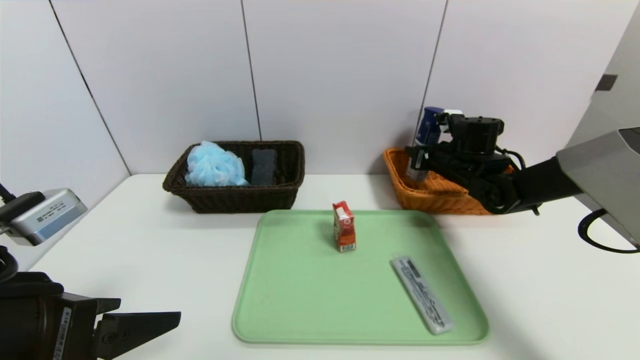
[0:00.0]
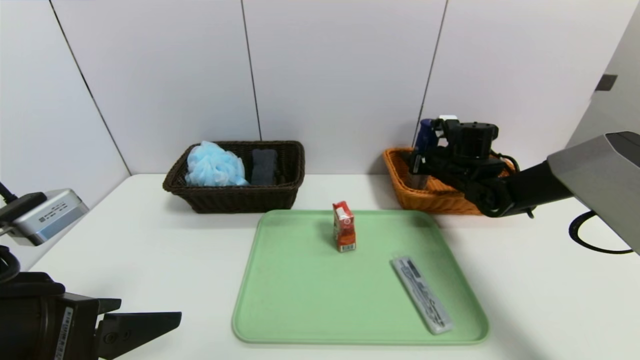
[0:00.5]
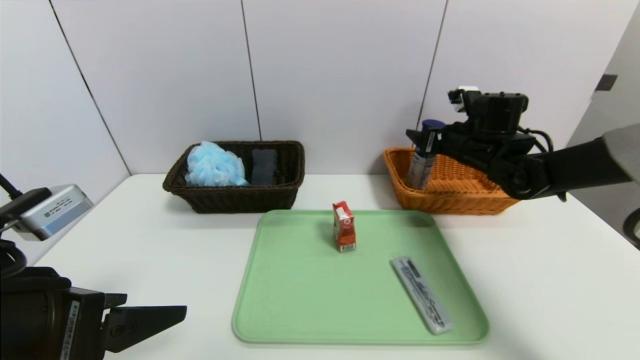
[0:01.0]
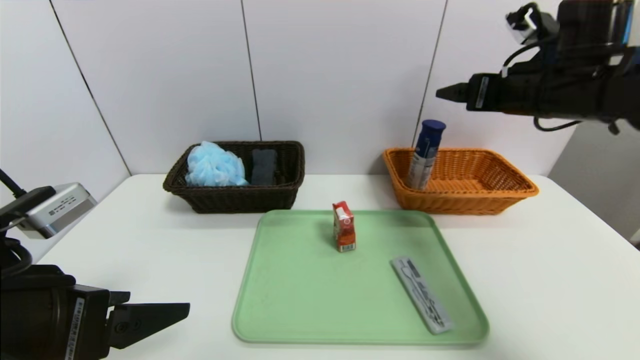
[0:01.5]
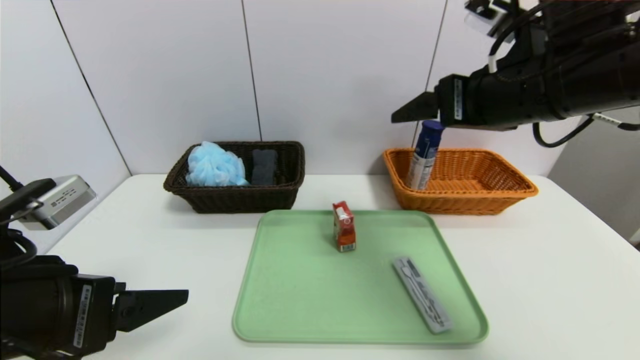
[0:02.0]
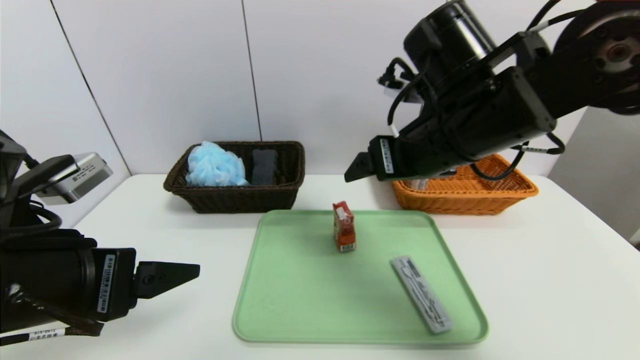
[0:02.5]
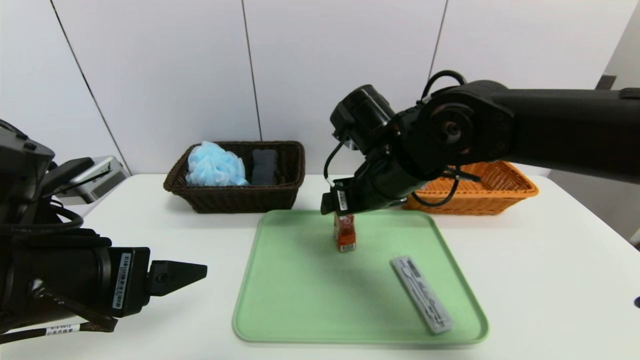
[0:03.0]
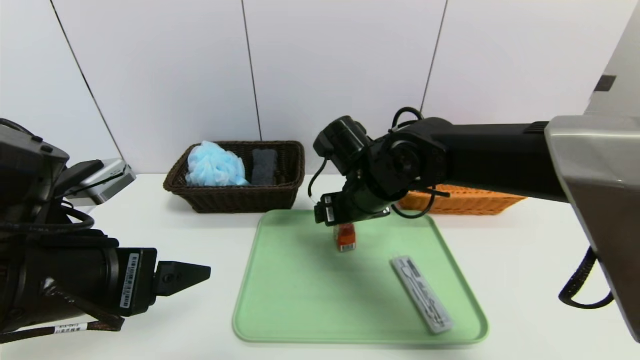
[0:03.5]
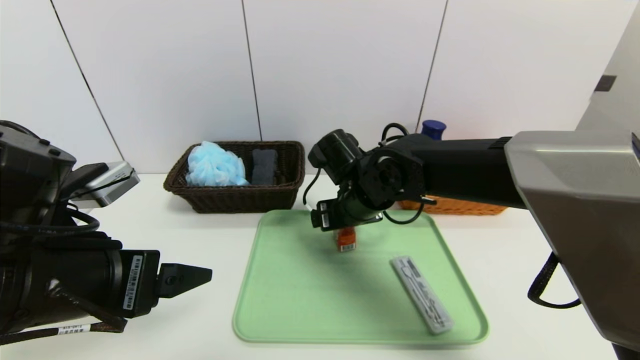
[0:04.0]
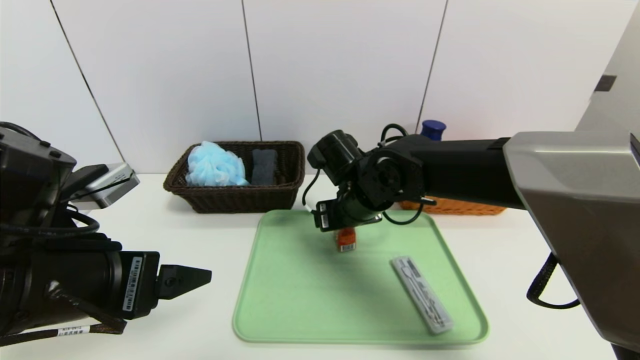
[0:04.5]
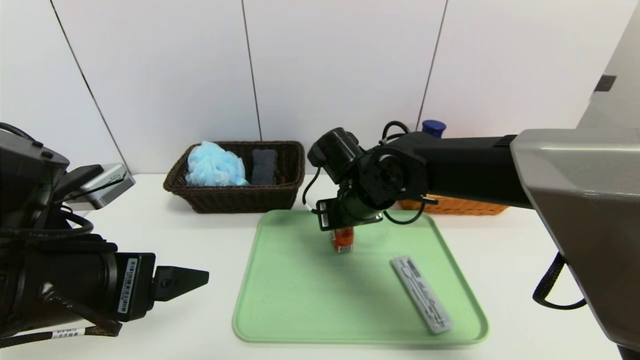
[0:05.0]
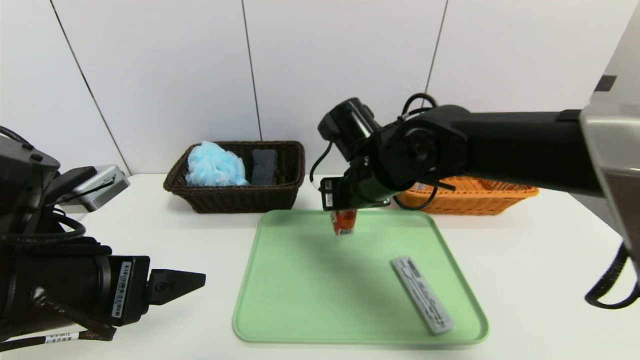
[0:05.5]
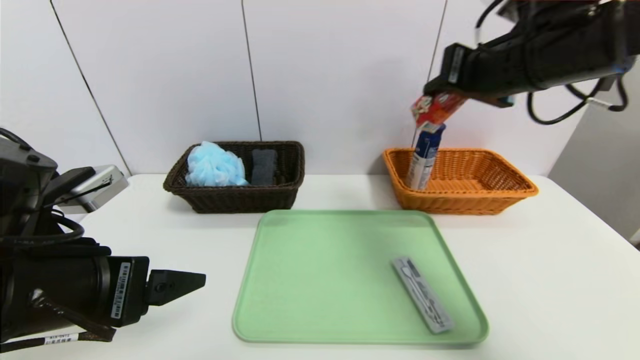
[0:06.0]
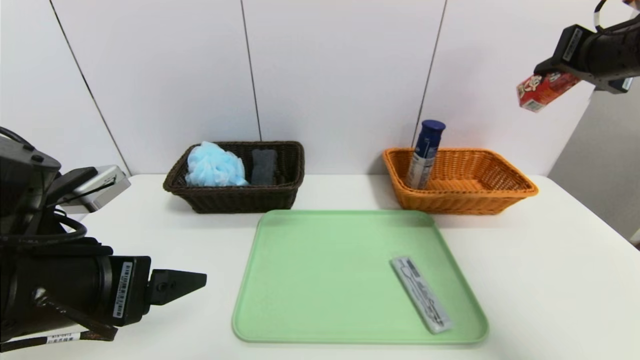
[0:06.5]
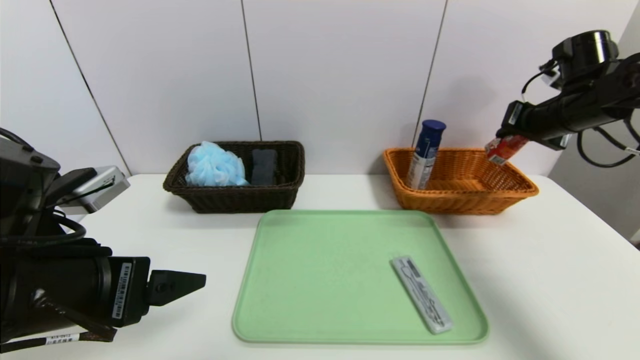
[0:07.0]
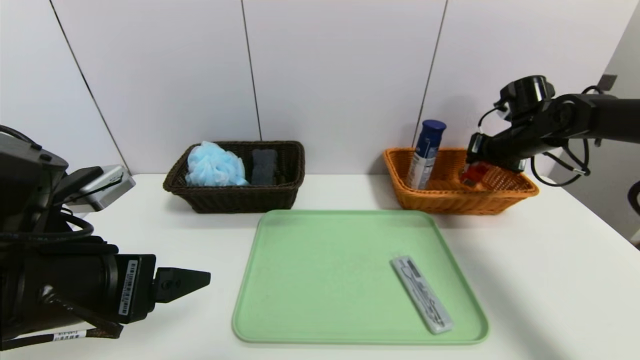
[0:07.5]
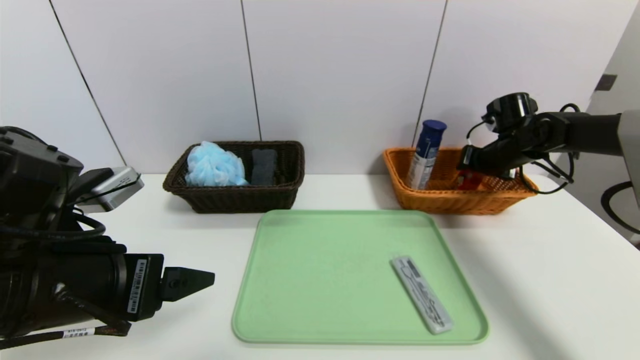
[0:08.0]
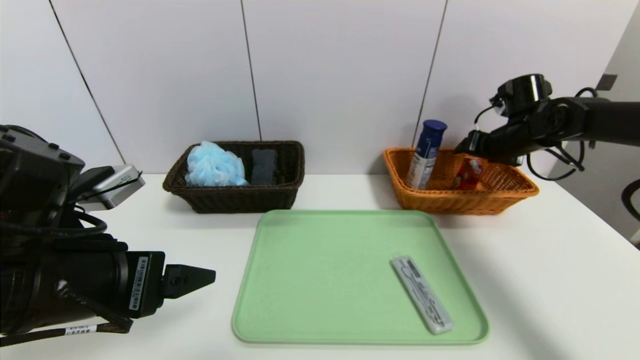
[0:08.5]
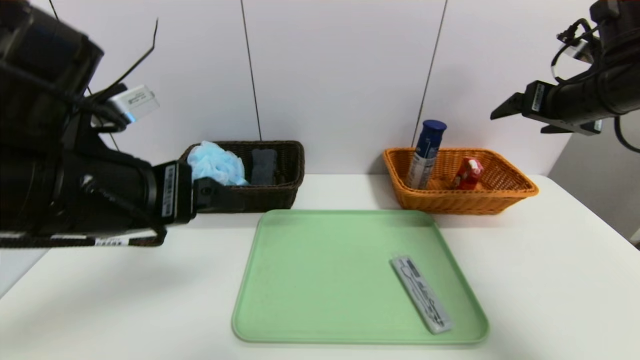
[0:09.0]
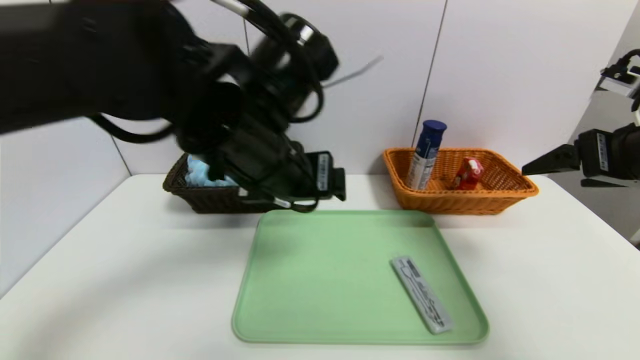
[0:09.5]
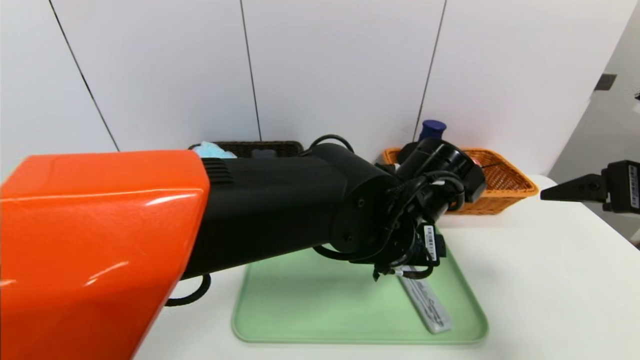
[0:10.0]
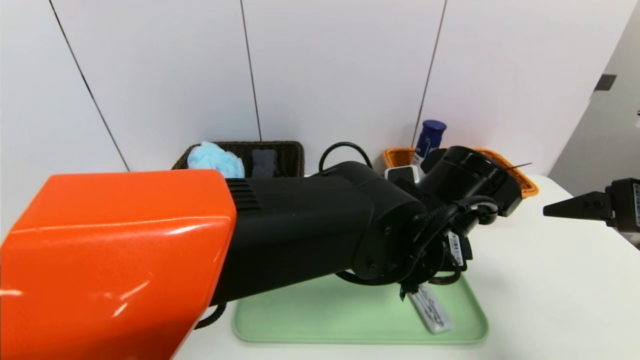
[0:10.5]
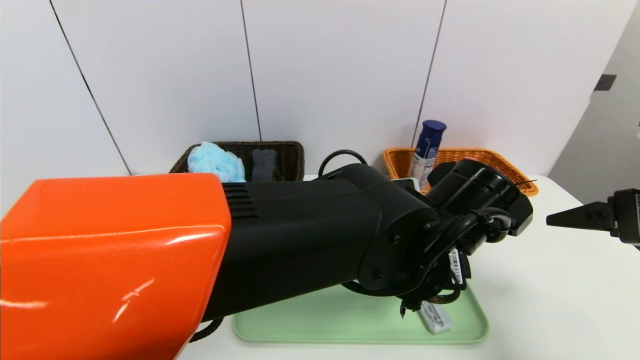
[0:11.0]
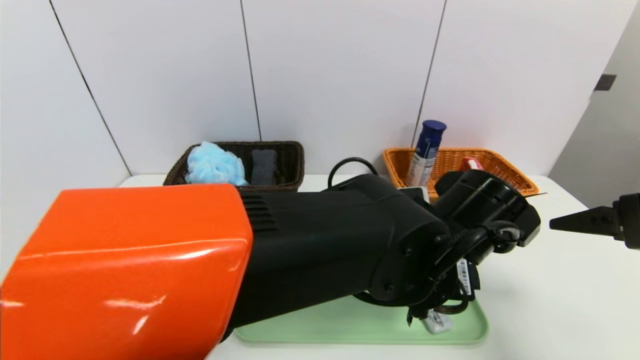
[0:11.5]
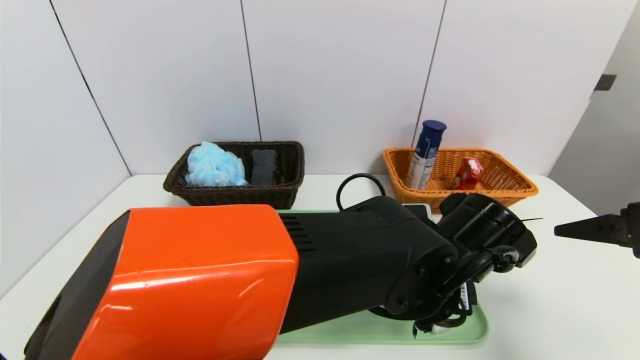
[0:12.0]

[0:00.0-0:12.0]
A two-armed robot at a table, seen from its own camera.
Task of the whole recording: place the food in the right basket with the right gripper, and place the non food items in the left basket with the left gripper.
Step, 0:01.5 to 0:08.5: Grasp the milk and put it in the right basket.
0:00.0 to 0:02.0: The right gripper travels backward and upward by approximately 25 cm, and opens its fingers.
0:02.0 to 0:04.0: The right gripper travels downward, to the left and forward by approximately 25 cm.
0:04.0 to 0:06.0: The right gripper is displaced upward and to the right by some 25 cm, and closes.
0:06.0 to 0:08.0: The right gripper heads downward, forward and to the right, covering some 30 cm, and opens.
0:08.0 to 0:10.0: The left gripper shifts about 30 cm to the right. The right gripper is displaced backward by some 30 cm, and opens up.
0:10.0 to 0:12.0: The left gripper moves roughly 5 cm.

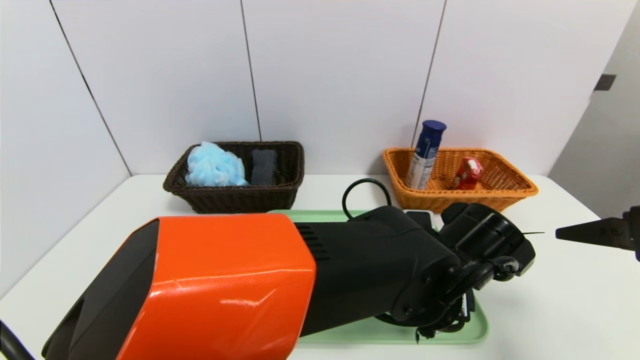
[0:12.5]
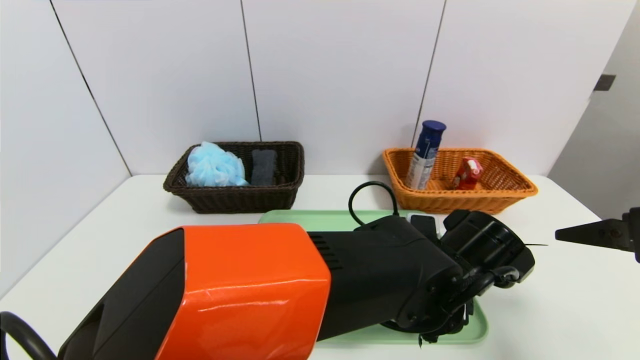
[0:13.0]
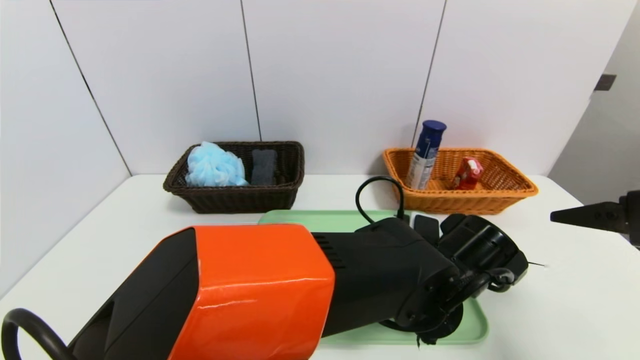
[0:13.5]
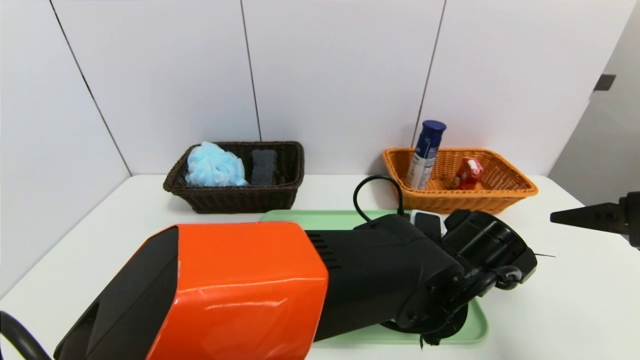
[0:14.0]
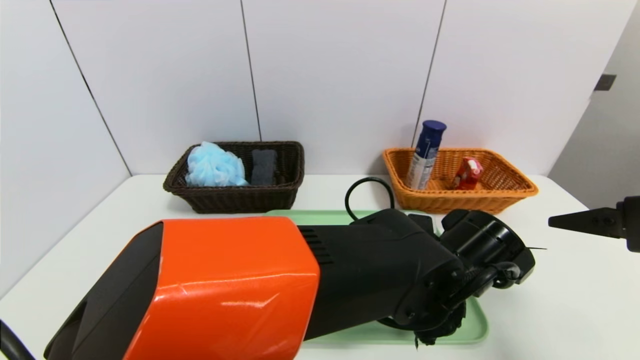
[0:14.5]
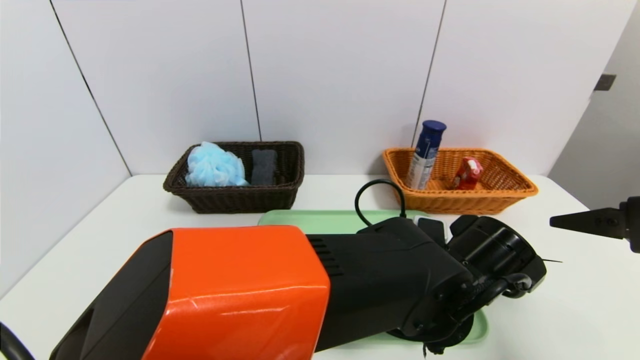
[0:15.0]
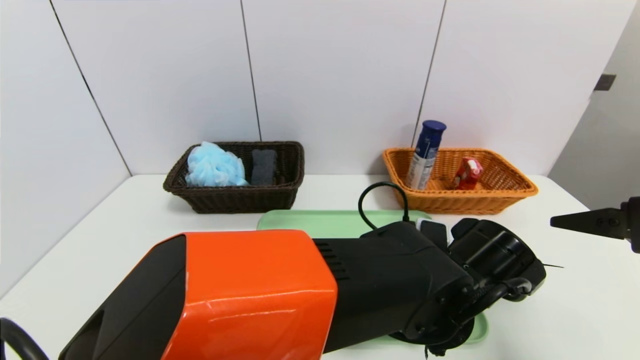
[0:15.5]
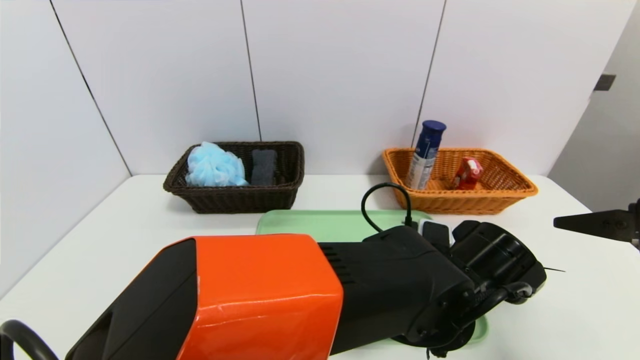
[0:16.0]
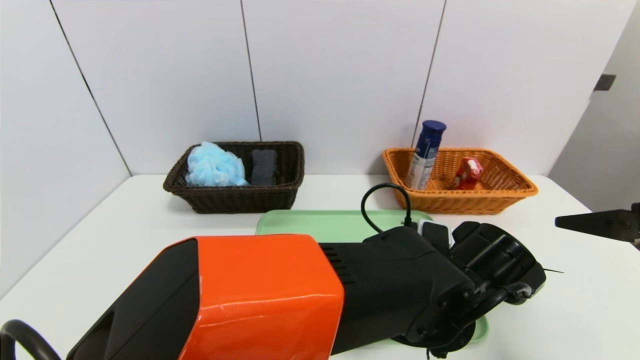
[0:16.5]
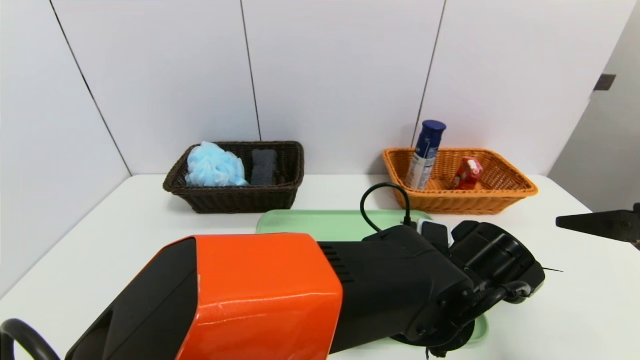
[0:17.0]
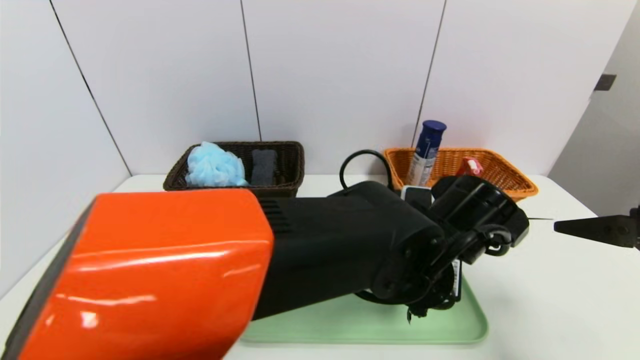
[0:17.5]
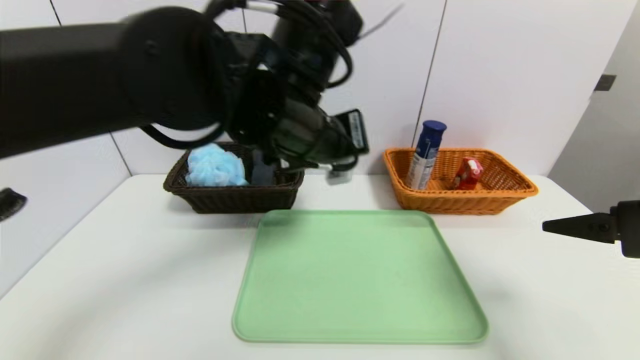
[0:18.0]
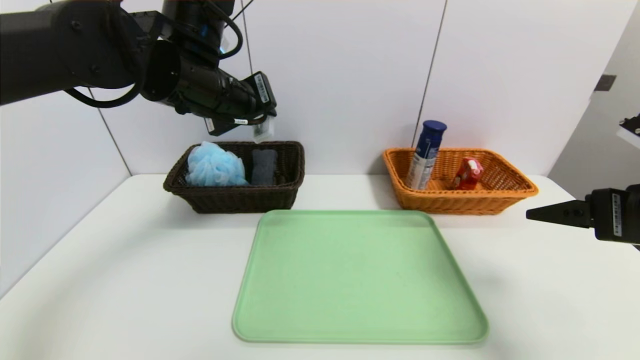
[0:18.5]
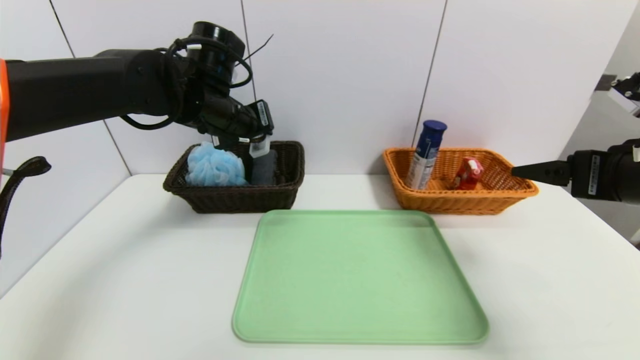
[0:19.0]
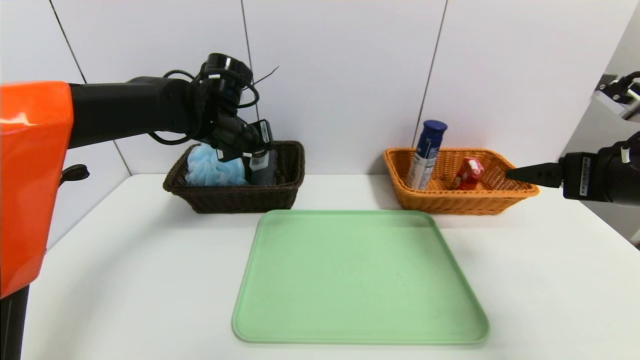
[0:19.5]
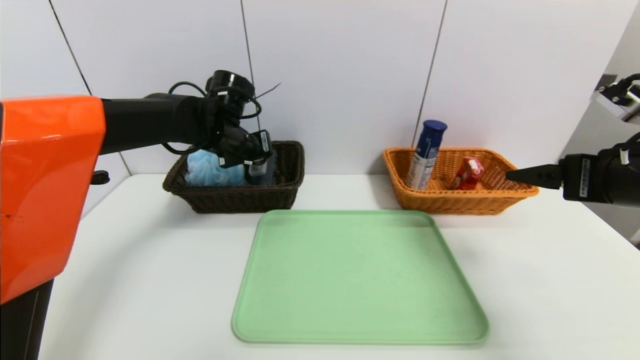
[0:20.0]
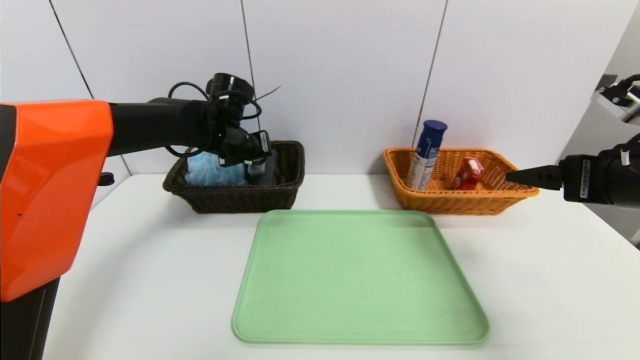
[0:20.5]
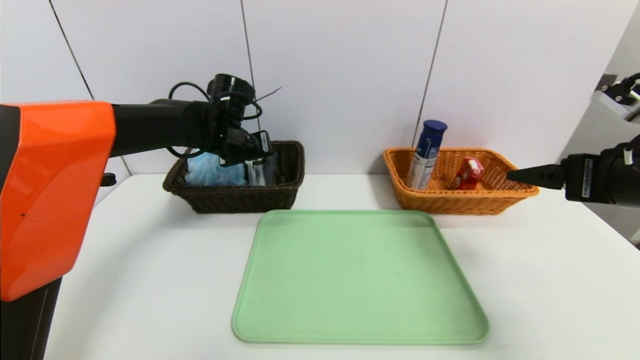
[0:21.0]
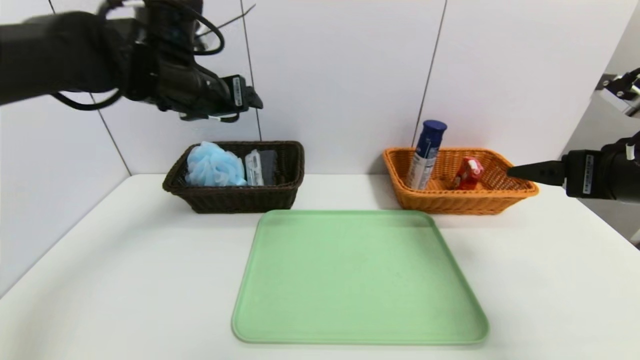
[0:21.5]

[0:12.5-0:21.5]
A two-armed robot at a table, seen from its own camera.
Task of the whole recording: place the food in the right basket with the right gripper, and place the non food items in the left basket with the left gripper.
Step, 0:12.5 to 0:21.0: Grasp the compass and put it in the right basket.
0:12.5 to 0:14.5: The grippers stay close to where they were, moving slightly.
0:14.5 to 0:17.0: The left gripper closes its fingers.
0:17.0 to 0:19.5: The left gripper travels to the left, forward and upward by some 35 cm; the right gripper heads forward, covering about 5 cm.
0:19.5 to 0:21.5: The left gripper is displaced upward and backward by some 10 cm, and opens up.
